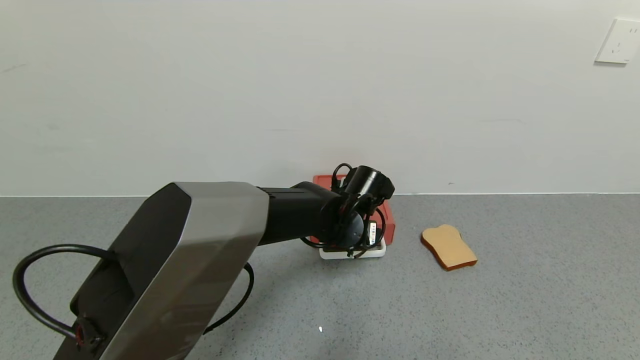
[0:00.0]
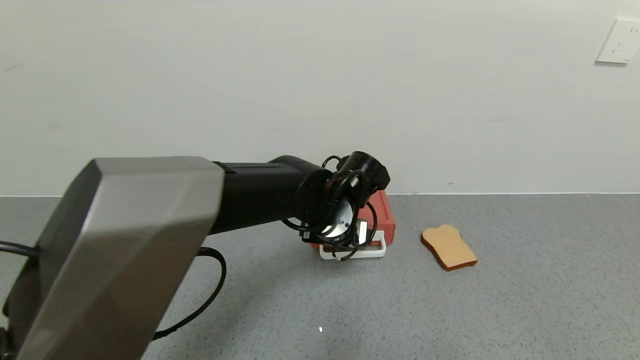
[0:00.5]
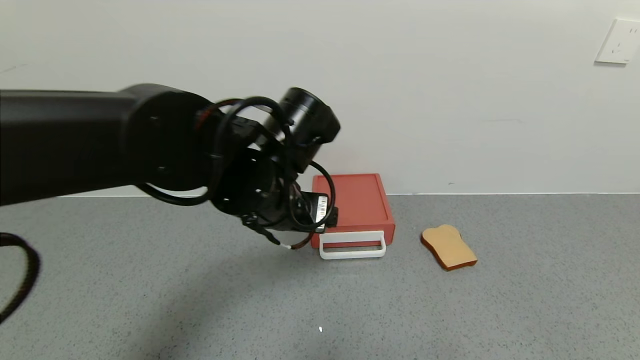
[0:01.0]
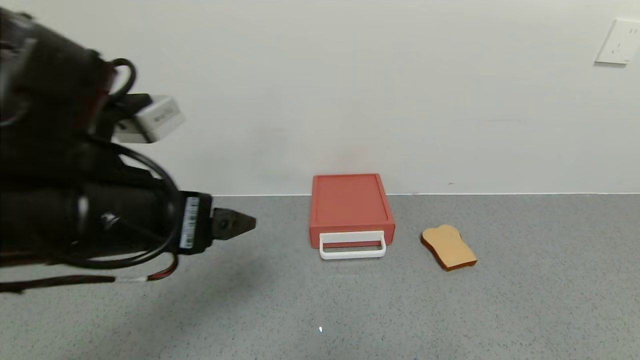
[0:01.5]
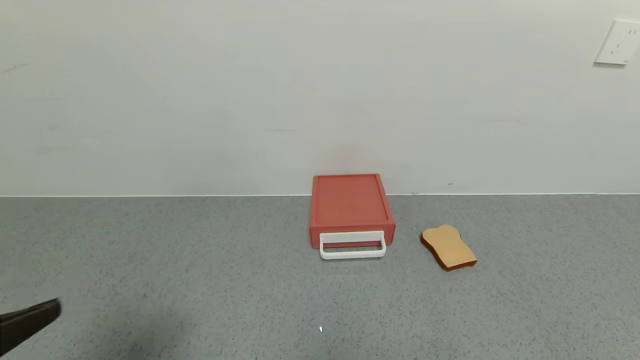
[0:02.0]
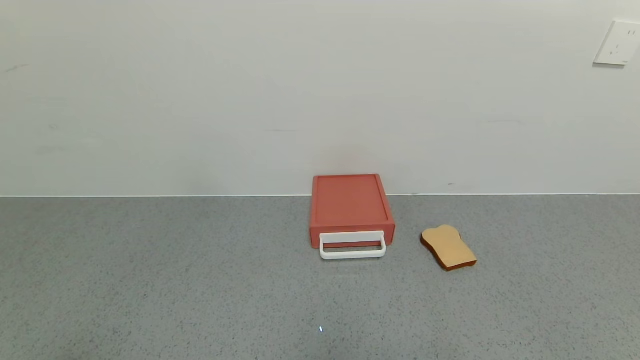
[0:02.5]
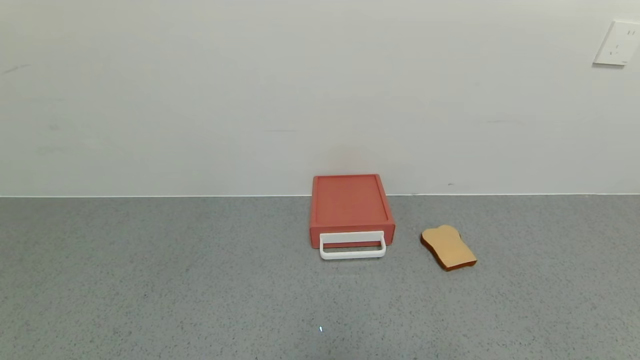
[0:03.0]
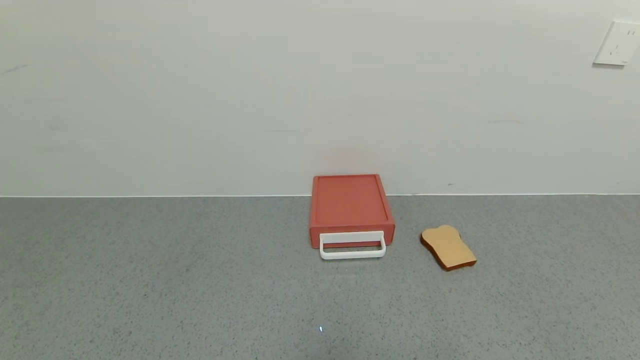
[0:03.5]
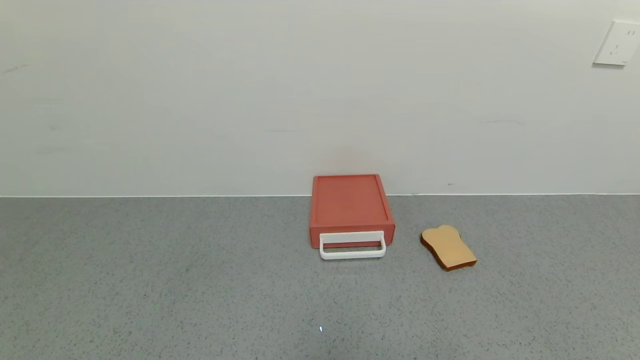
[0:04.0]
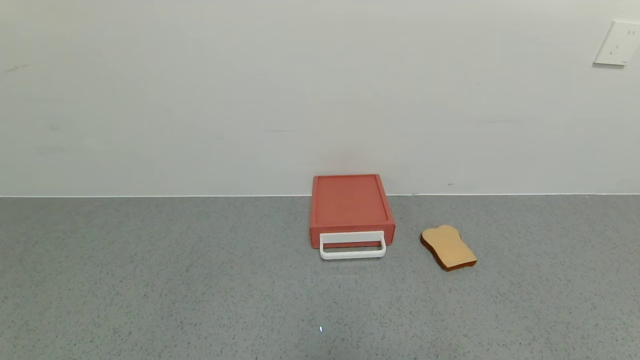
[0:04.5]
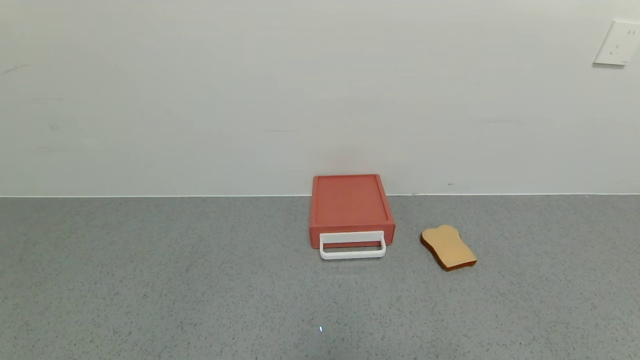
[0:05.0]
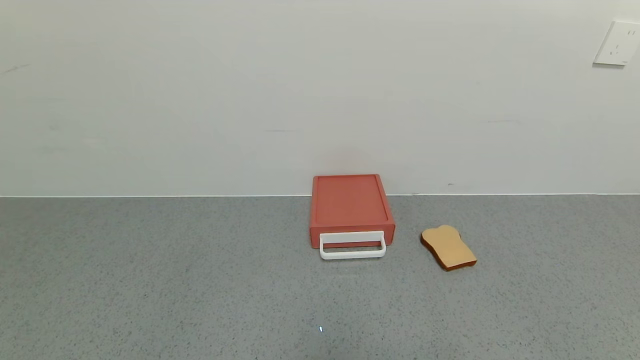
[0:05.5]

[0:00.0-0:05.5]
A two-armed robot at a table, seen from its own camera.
Task of the whole recording: use the gripper to open the drawer and close the red drawer.
0:00.0 to 0:02.0: The left gripper moves backward, to the left and upward, roughly 50 cm.
0:02.0 to 0:03.5: The left gripper travels backward and downward by about 15 cm.
